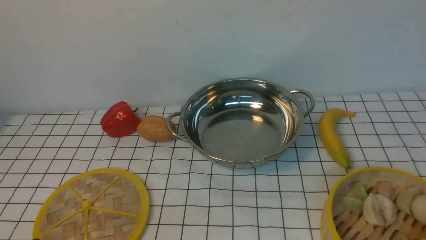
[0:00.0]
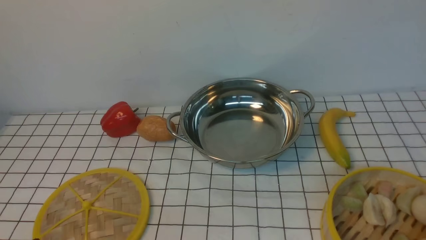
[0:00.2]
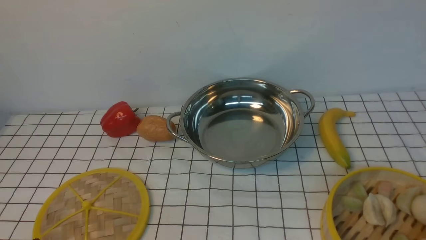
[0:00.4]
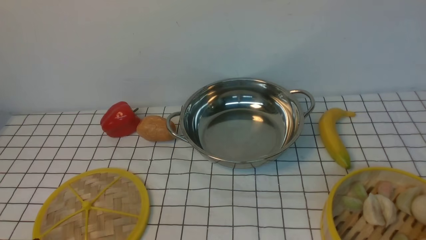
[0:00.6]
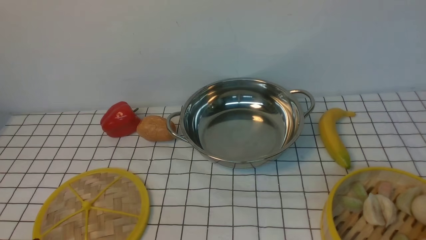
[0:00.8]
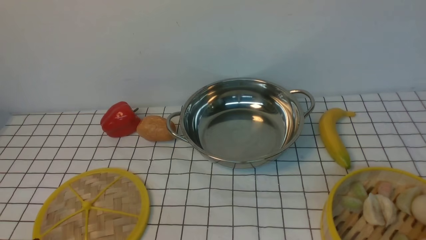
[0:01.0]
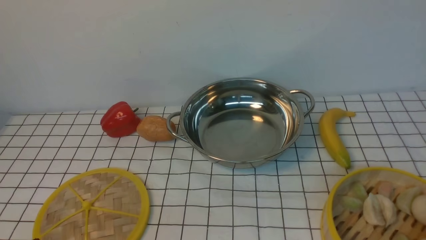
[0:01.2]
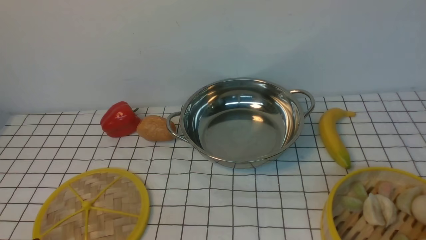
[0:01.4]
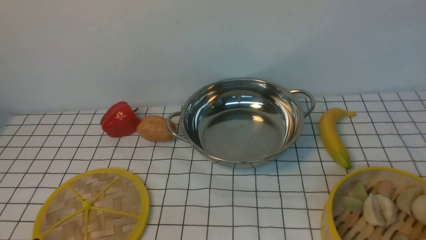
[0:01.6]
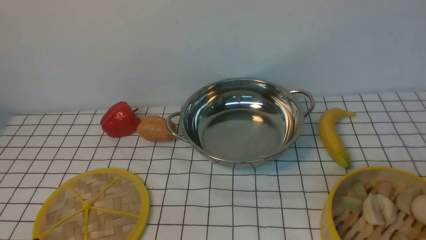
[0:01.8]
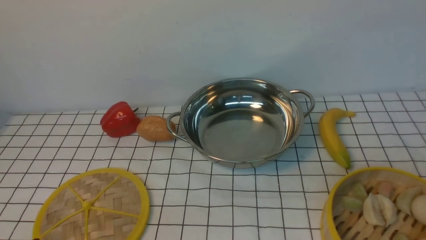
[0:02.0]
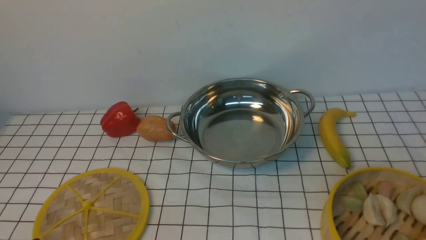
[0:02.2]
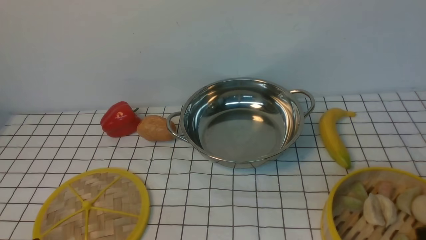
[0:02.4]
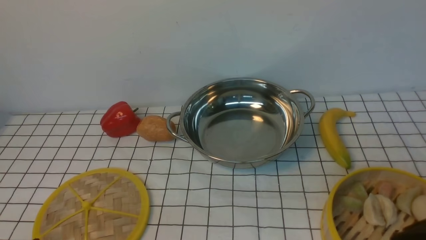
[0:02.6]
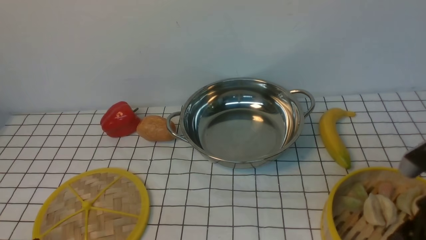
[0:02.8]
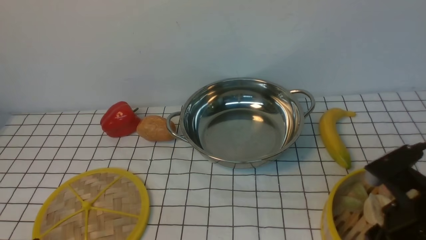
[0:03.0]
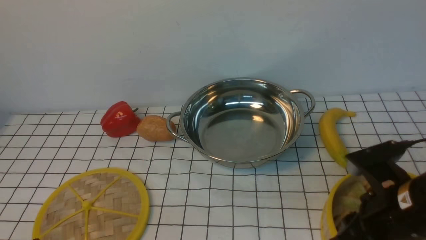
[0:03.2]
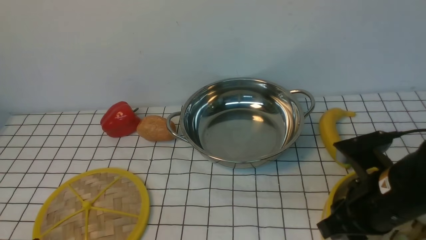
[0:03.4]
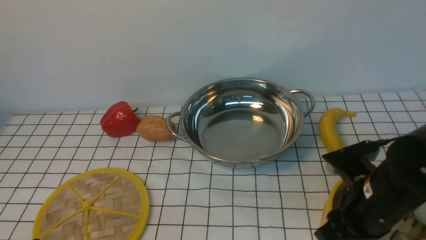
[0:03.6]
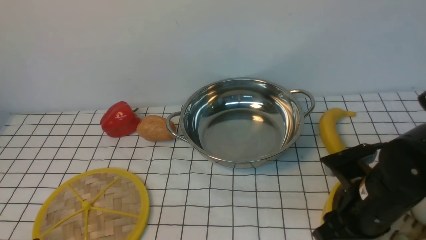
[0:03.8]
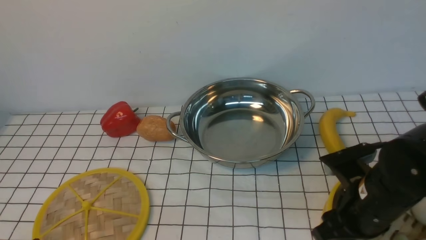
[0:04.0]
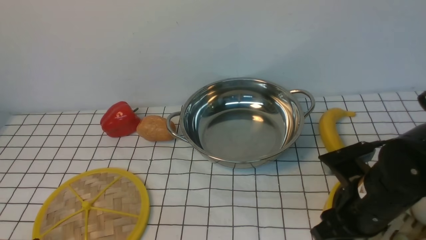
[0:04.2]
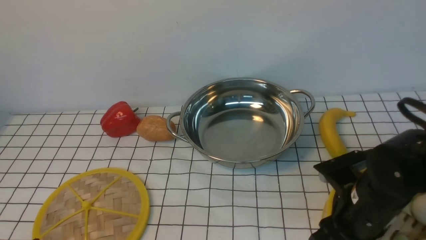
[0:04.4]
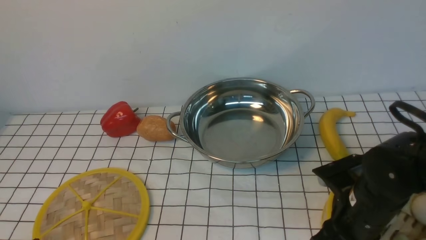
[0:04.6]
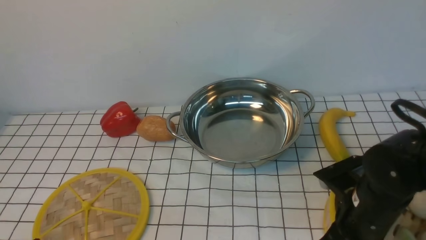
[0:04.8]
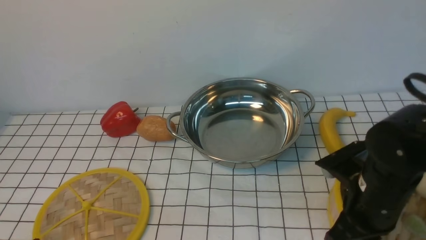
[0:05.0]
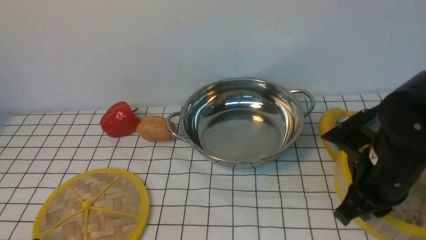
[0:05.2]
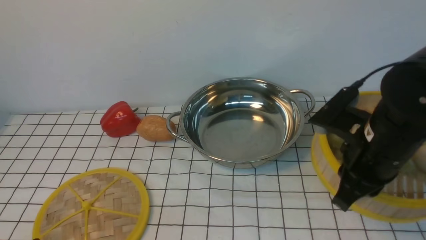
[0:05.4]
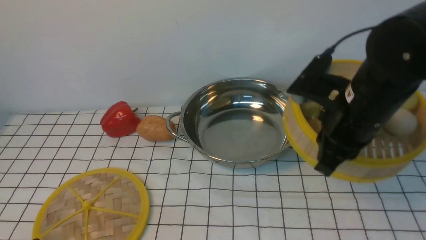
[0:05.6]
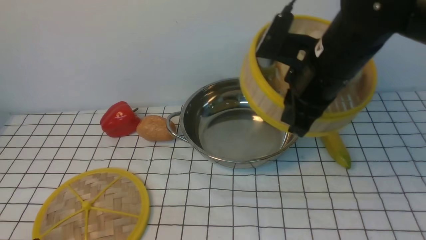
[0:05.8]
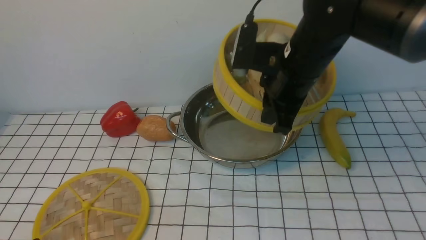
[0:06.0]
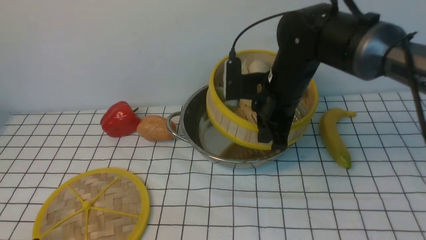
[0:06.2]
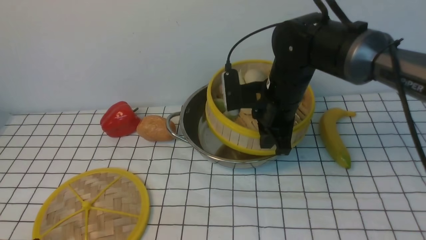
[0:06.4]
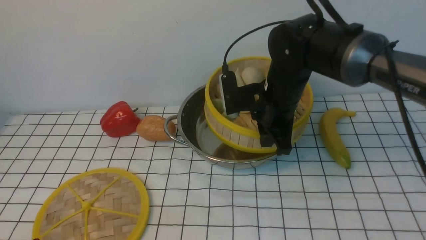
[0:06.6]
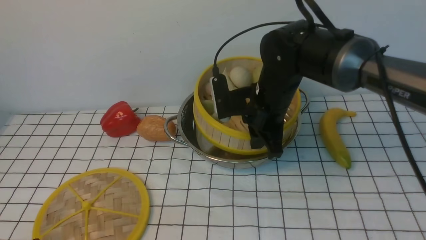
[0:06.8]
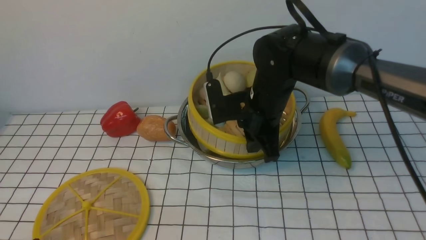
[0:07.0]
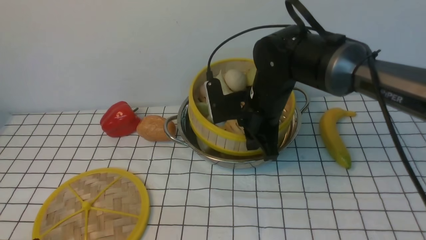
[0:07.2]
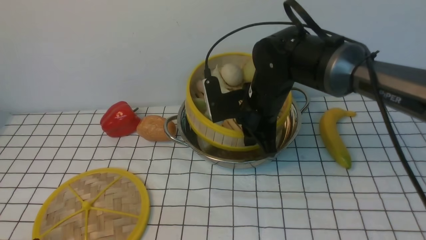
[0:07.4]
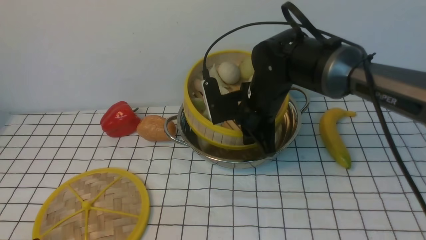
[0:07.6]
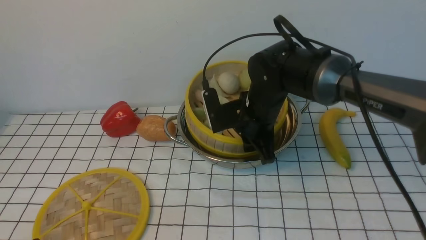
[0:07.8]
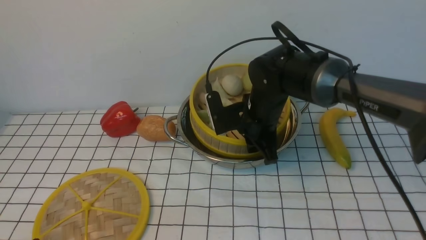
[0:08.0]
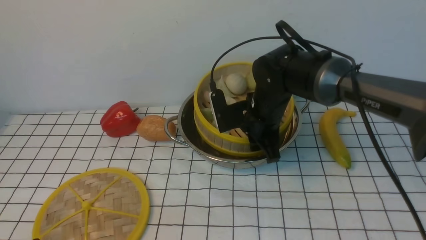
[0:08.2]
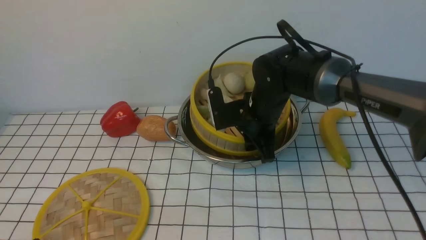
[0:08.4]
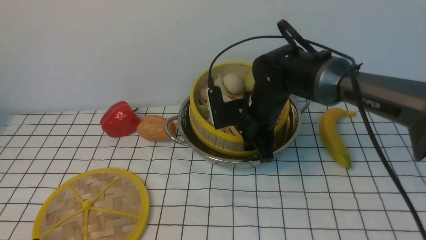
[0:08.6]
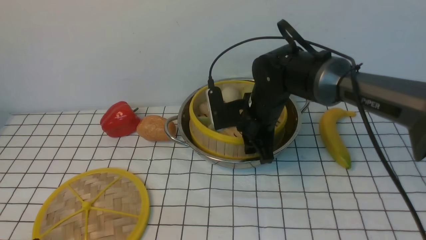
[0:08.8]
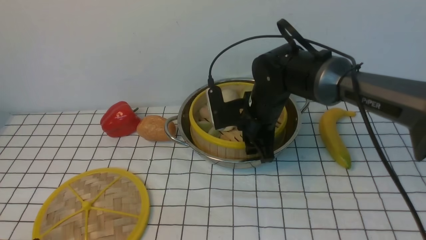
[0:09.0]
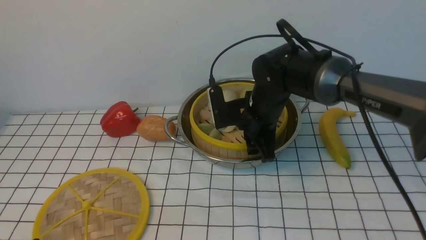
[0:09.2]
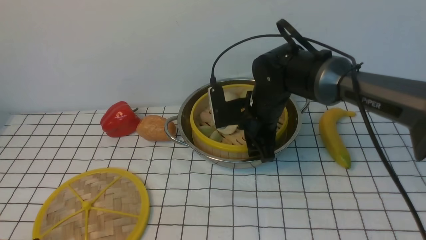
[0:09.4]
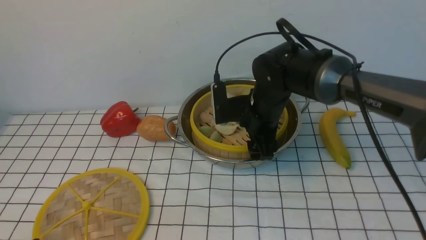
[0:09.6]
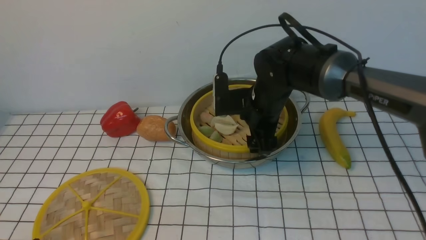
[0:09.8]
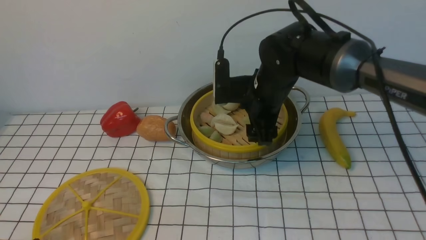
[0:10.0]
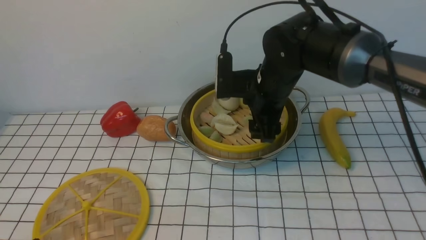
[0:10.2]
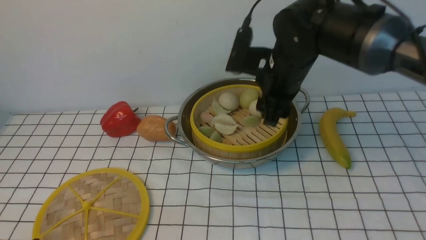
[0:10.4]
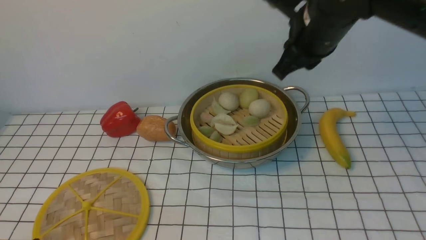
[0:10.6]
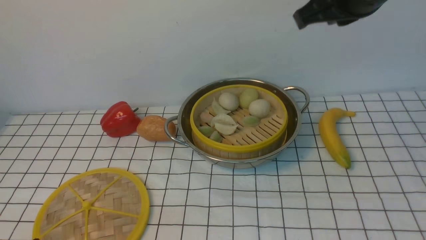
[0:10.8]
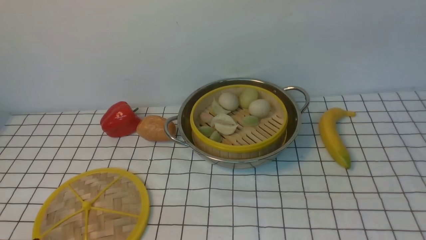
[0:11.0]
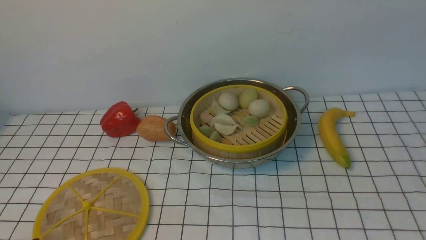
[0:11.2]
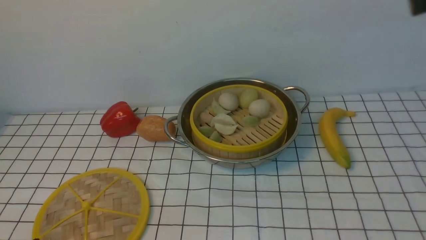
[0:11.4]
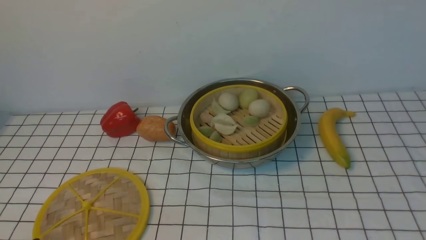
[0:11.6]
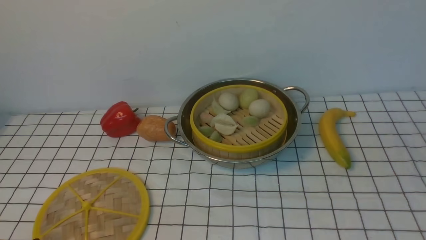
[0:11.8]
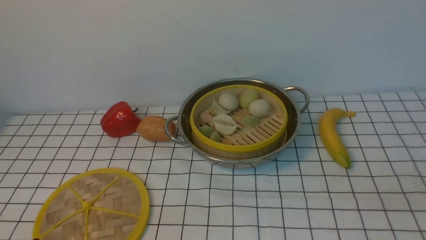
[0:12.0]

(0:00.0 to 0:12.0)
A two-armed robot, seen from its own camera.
Task of the whole recording: place the steamer in the pot on the white tablecloth, and put the lid on the steamer.
Step, 0:00.0 - 0:04.8: use the right arm to lift the steamer closest to it.
Step, 0:05.0 - 0:09.8: use the right arm to put the steamer into the iron steamer pot in the middle.
0:01.6 - 0:03.0: The right gripper goes some 15 cm forward and to the left.
0:03.0 - 0:04.4: The right gripper heads downward and forward, covering approximately 10 cm.
0:04.4 - 0:06.0: The right gripper moves forward, upward and to the left, approximately 20 cm, and closes.
0:06.0 - 0:07.6: The right gripper goes about 5 cm downward.
0:07.6 - 0:09.0: The right gripper opens.
0:09.0 - 0:10.4: The right gripper moves upward, about 10 cm.
0:10.4 - 0:12.0: The right gripper goes approximately 35 cm backward and to the right, and closes up.

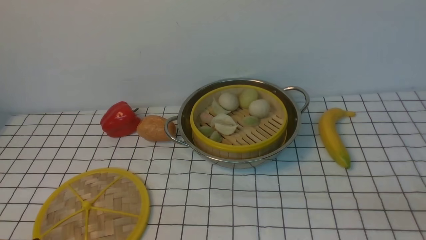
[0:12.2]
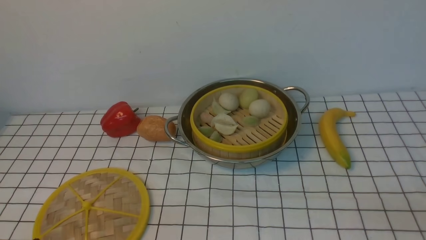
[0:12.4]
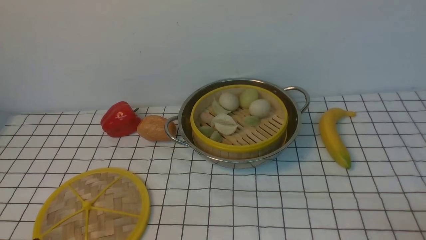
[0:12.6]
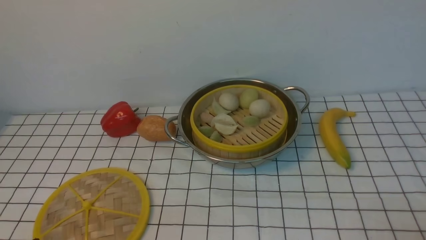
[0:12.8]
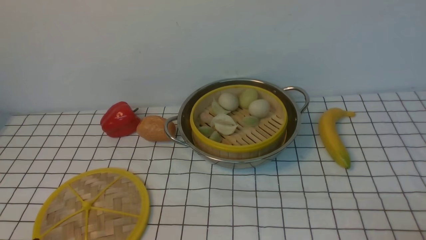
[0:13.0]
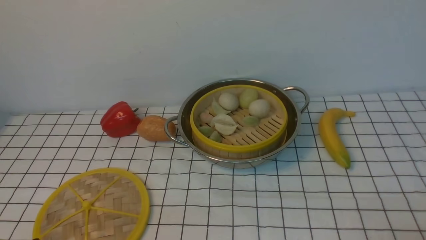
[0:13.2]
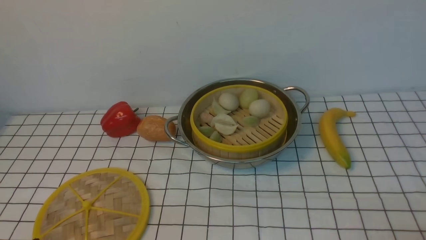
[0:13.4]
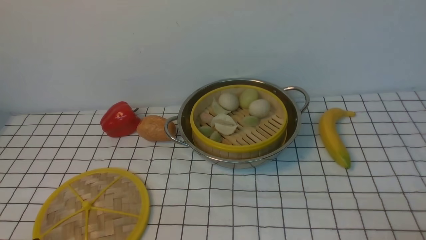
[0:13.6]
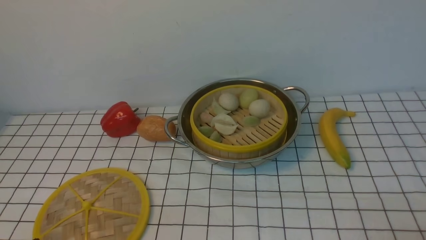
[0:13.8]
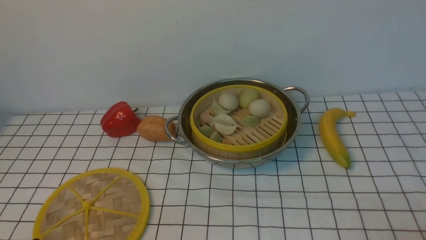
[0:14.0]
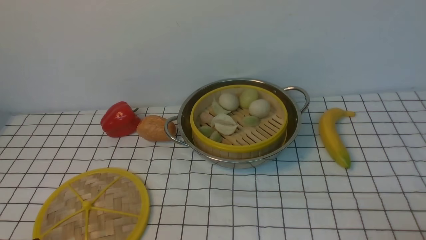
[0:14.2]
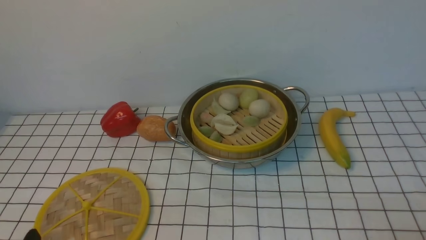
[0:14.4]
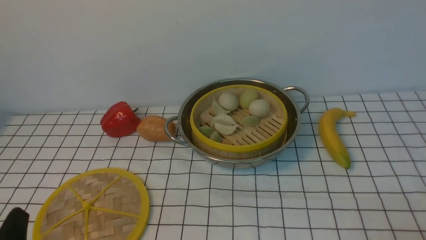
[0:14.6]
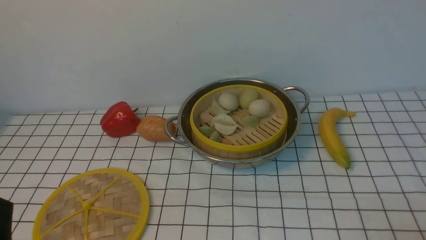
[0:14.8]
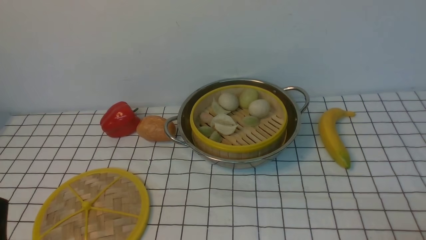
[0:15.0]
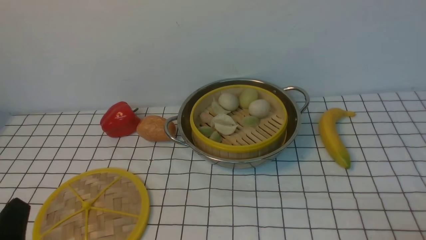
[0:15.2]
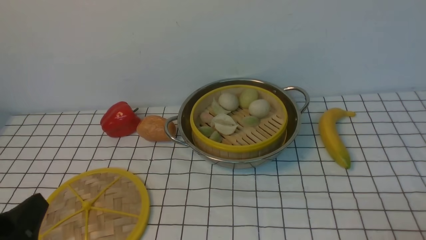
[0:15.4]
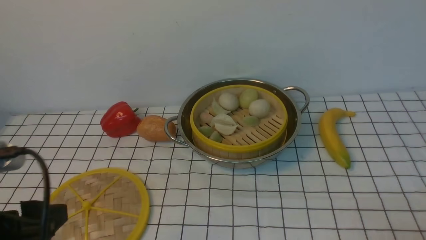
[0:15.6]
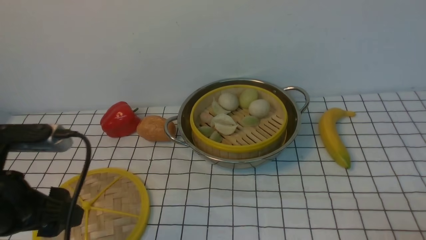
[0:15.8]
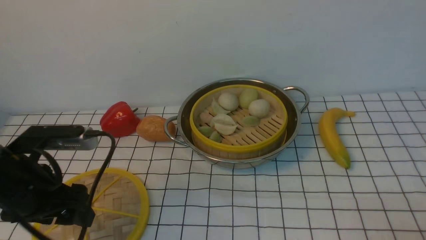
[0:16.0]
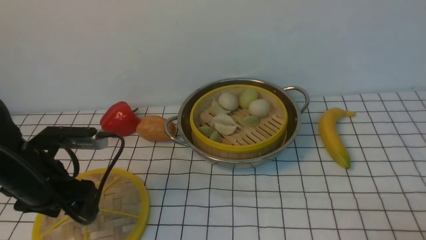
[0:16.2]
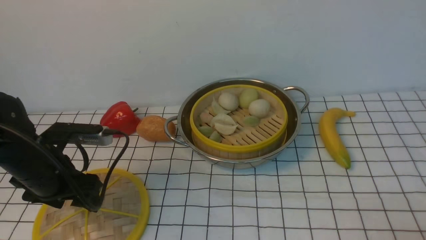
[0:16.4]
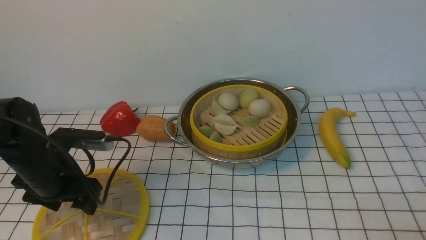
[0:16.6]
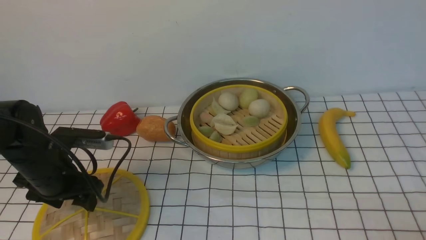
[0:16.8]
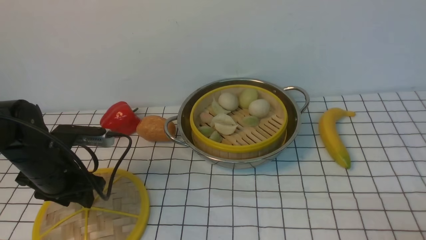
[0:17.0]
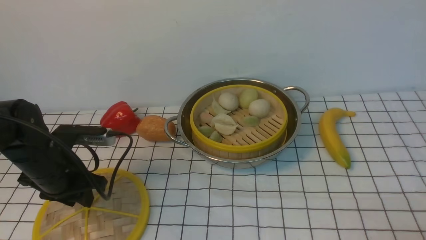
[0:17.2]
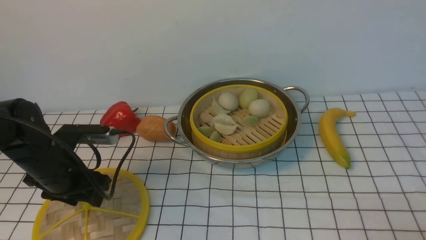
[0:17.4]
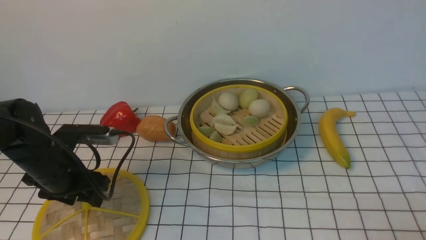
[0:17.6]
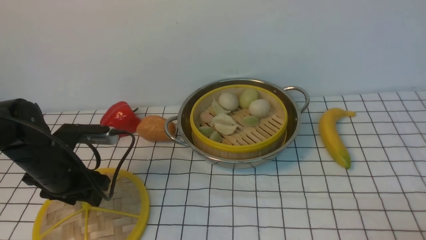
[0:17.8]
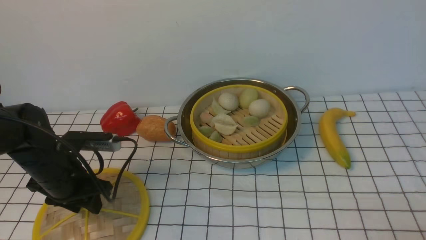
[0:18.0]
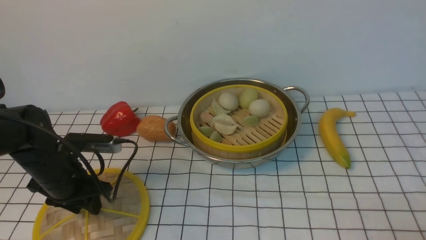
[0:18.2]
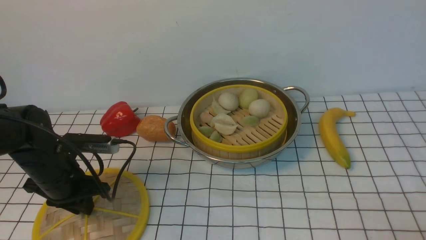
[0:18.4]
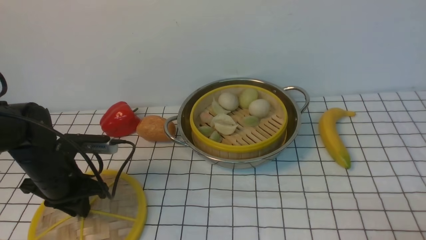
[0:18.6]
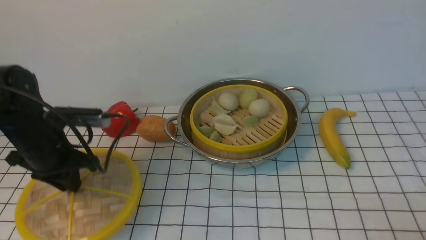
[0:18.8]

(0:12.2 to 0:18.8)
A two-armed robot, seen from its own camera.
Task of the whole recording: place the steamer in the pot on the white tablecloth, and put the lid on the steamer.
Step, 0:12.2 - 0:18.6: use the left arm to lift the lid of the steamer.
0:13.8 - 0:15.4: The left gripper moves upward, approximately 10 cm.
0:15.4 - 0:17.2: The left gripper is displaced forward by some 20 cm, and closes.
0:17.2 - 0:18.8: The left gripper heads upward, covering about 5 cm, and closes.
